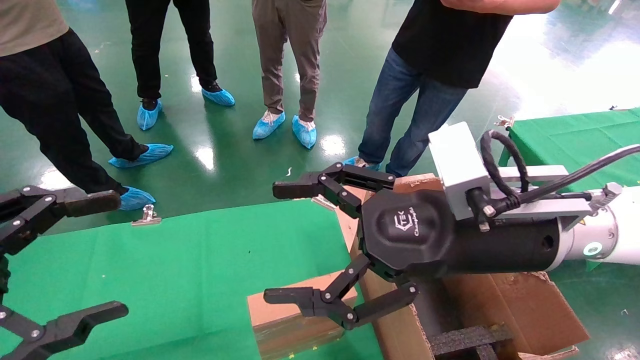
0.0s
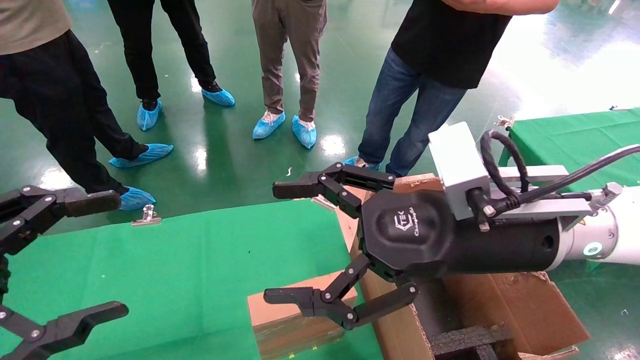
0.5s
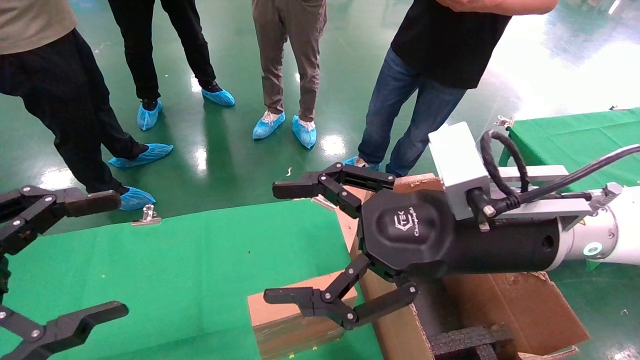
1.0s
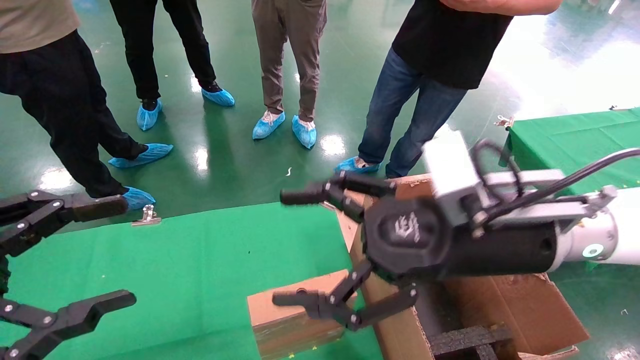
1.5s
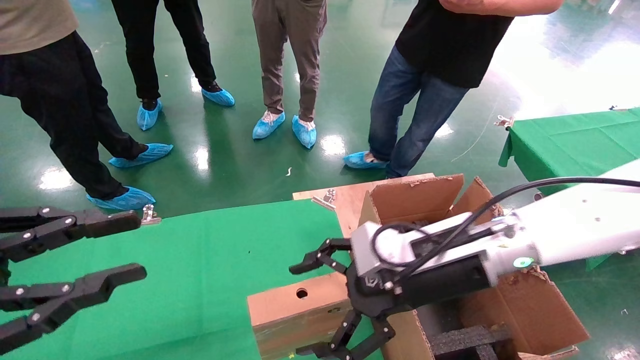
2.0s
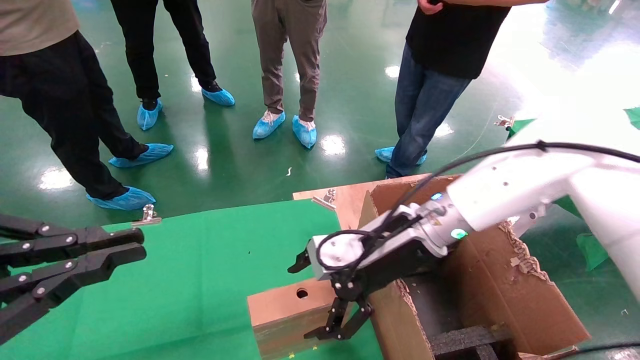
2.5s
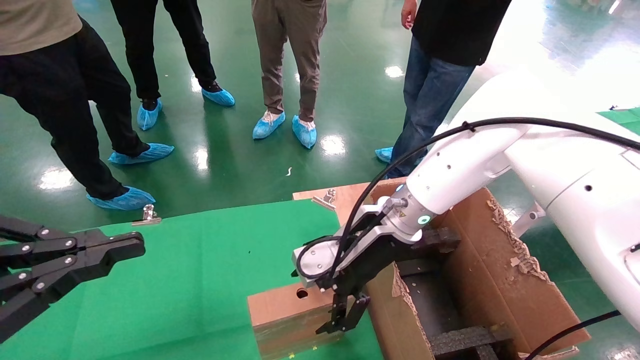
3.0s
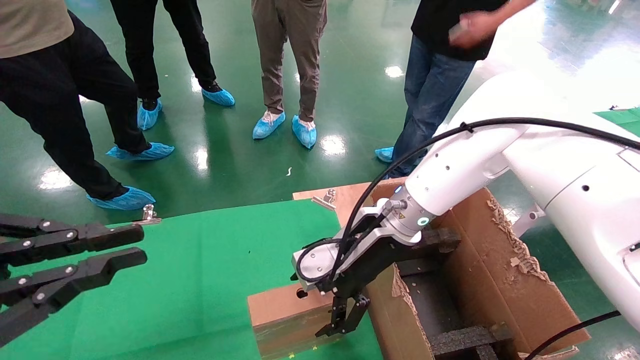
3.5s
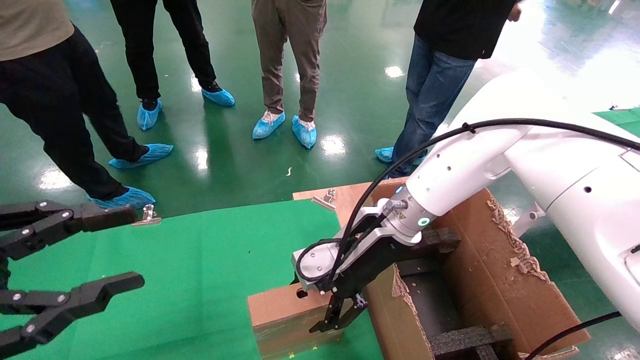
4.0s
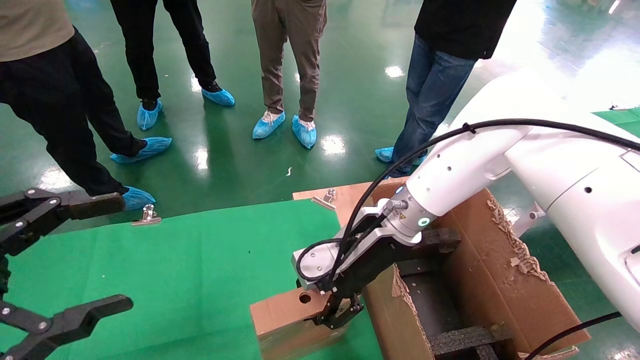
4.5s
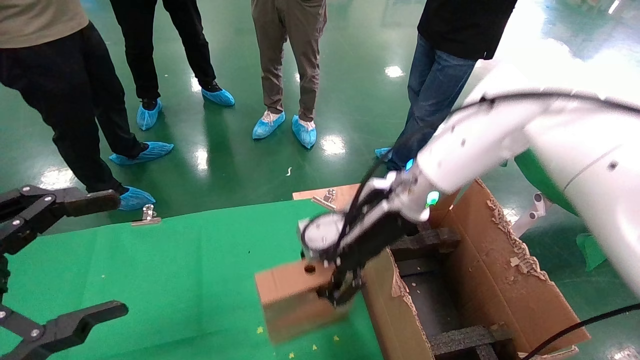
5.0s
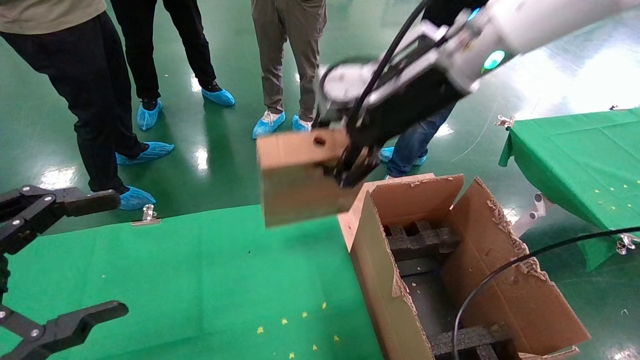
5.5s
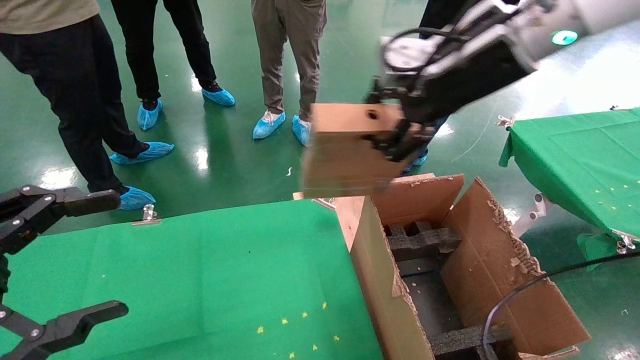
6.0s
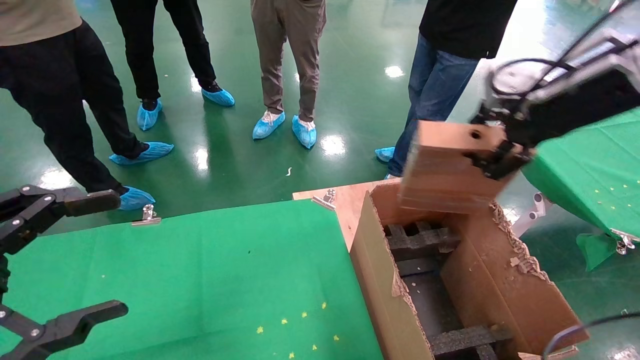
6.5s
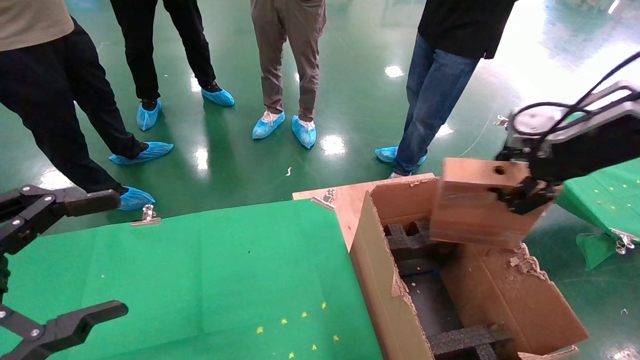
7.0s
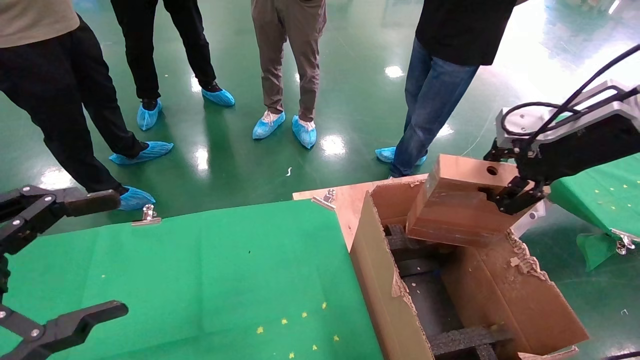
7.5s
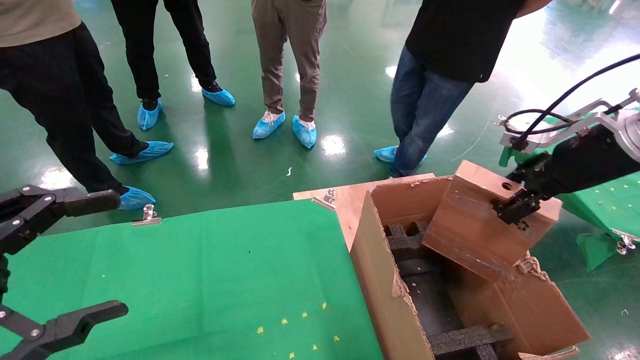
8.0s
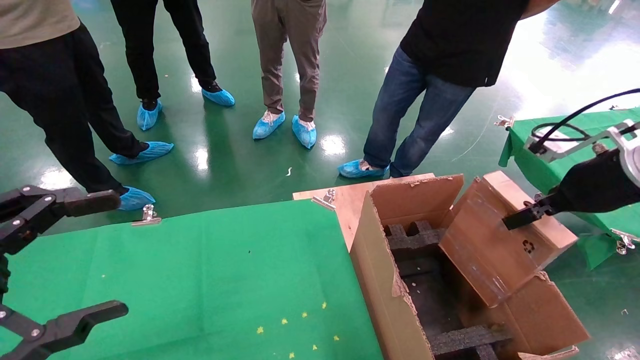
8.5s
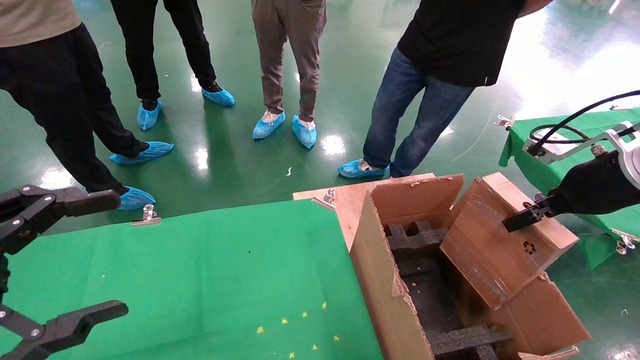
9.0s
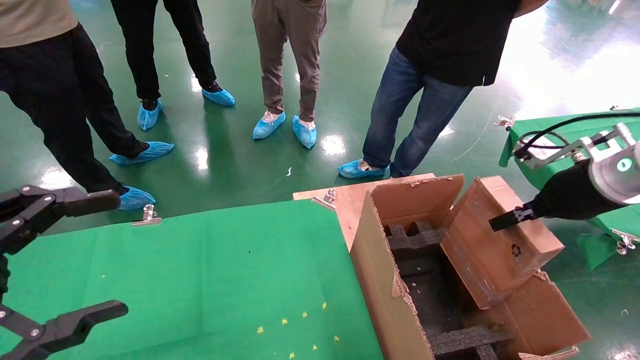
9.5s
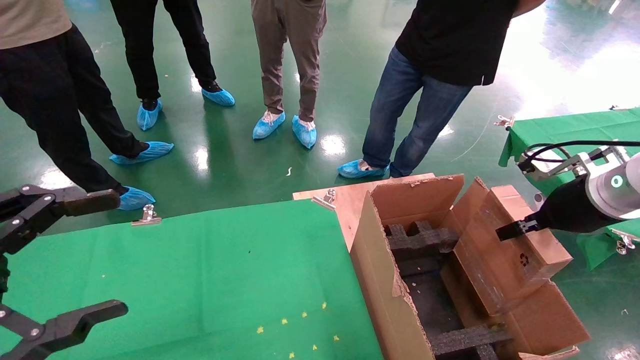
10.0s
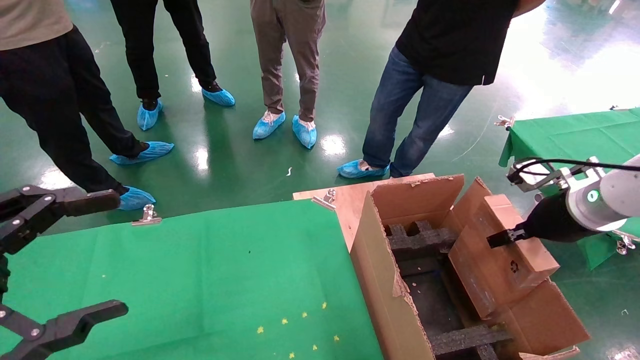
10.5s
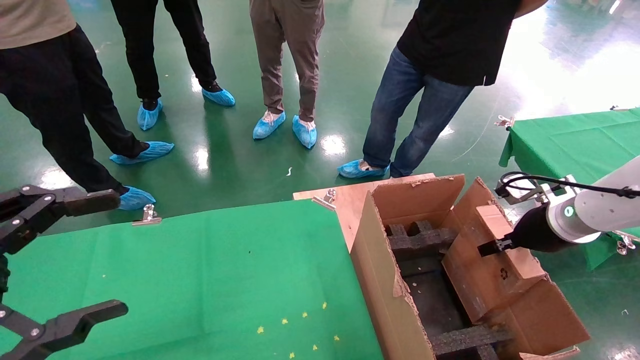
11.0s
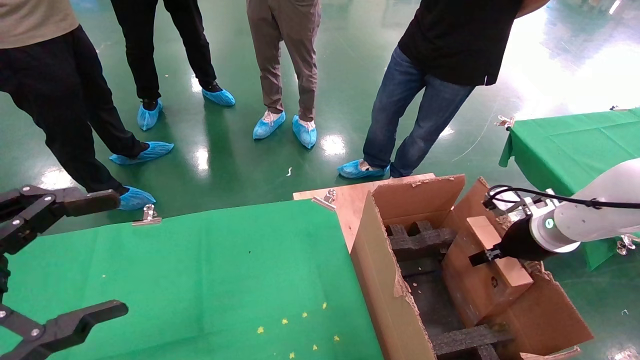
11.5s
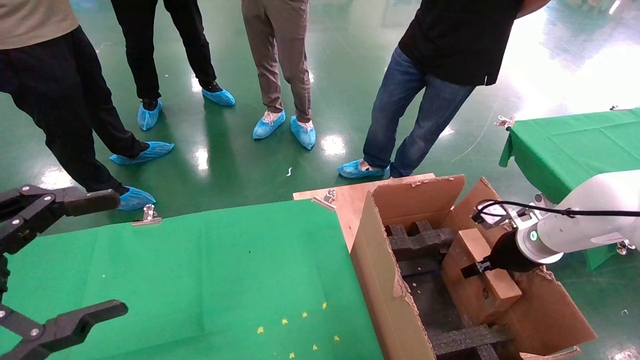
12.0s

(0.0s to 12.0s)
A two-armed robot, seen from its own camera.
Task of the whole recording: using a robotic arm to pick up a cardboard box and palace it the carton.
Step, 1.0s - 4.0s: Pick up the mouse and the power cord paper box.
0.0s - 2.0s: The left gripper closes up, while the right gripper goes some 10 cm downward and forward.
2.0s - 4.0s: The left gripper closes, then reopens, while the right gripper heads forward and to the left, covering about 10 cm.
4.0s - 6.0s: The left gripper opens up. The right gripper is displaced upward and to the right by roughly 25 cm, and closes up.
6.0s - 8.0s: The right gripper shifts about 20 cm to the right and downward.
8.0s - 10.0s: The right gripper shifts roughly 5 cm downward.
10.0s - 12.0s: The right gripper shifts about 15 cm downward and forward.

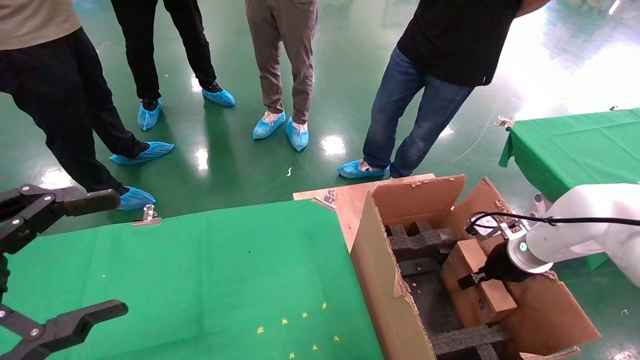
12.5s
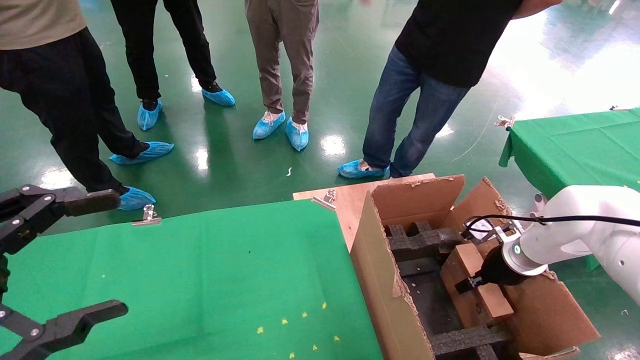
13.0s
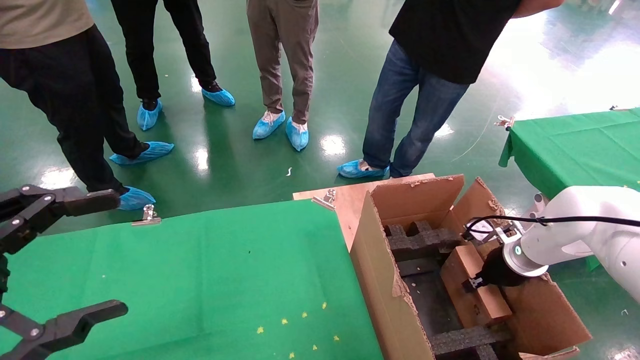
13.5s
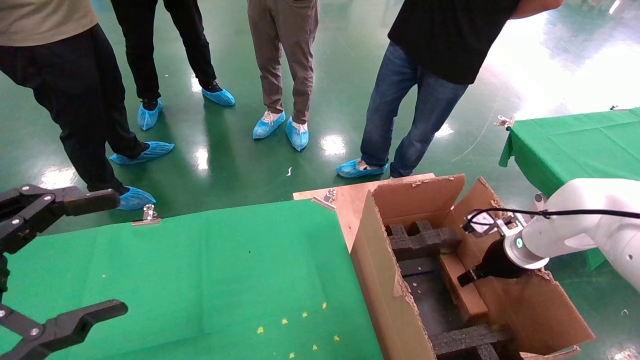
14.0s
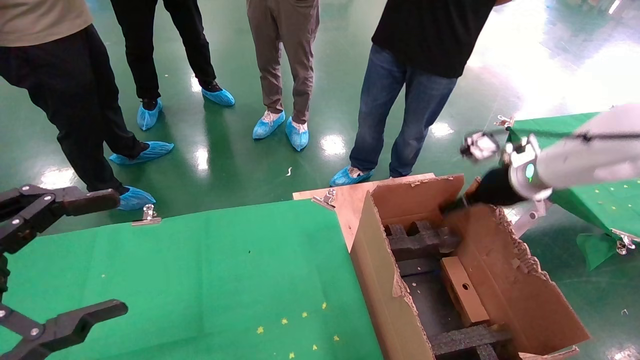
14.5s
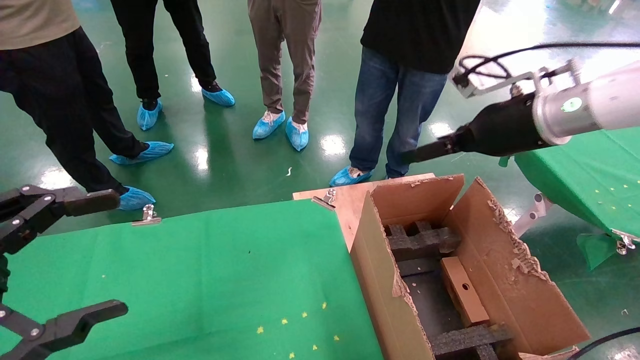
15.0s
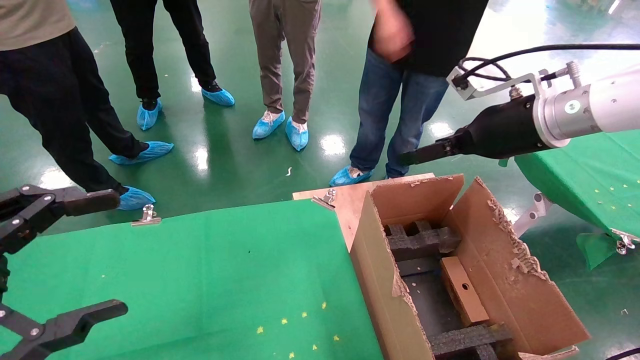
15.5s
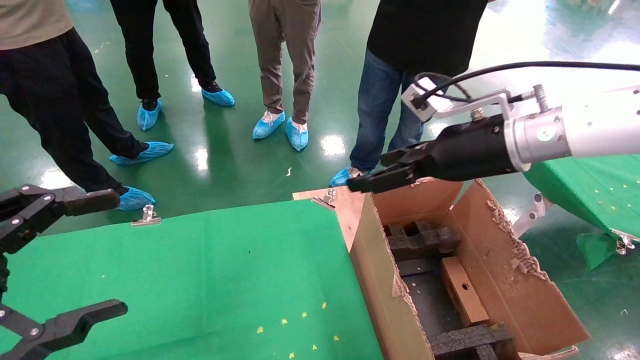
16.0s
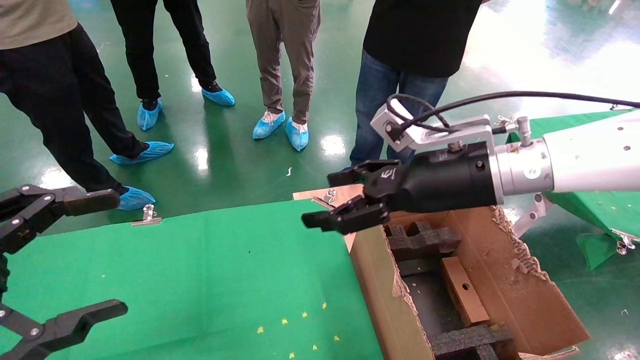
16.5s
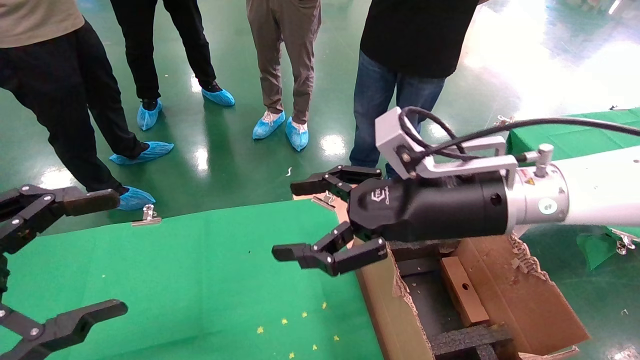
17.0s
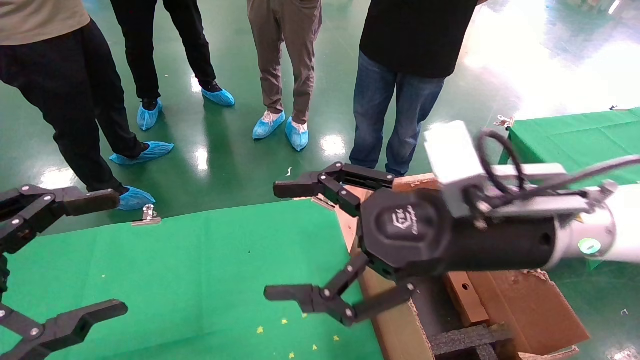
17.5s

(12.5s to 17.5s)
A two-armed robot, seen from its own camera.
Task of the whole recording: using a robotic arm to pick up a cardboard box and palace it the carton.
Step, 12.5s - 14.5s: Place the mouse and the power cord paper box into the container.
12.5s - 15.0s: The right gripper travels upward by about 25 cm, and opens its fingers.
15.0s - 17.5s: The right gripper shifts approximately 20 cm to the left, backward and downward.

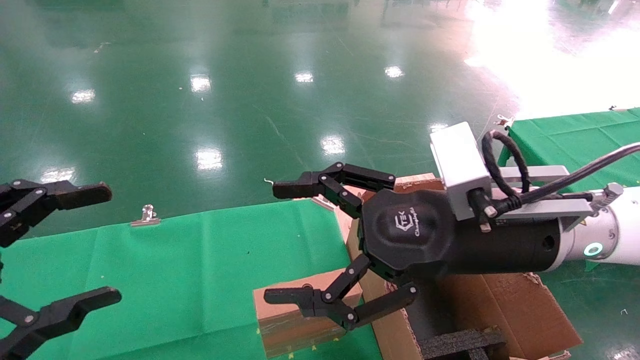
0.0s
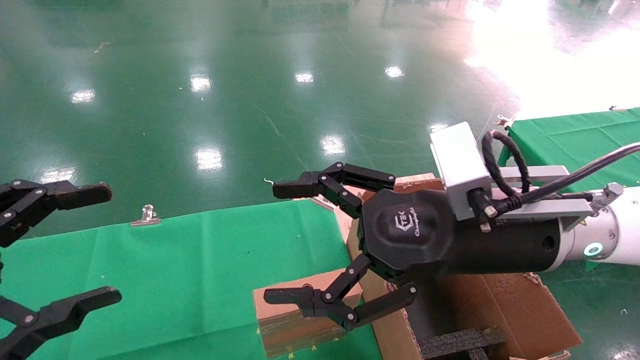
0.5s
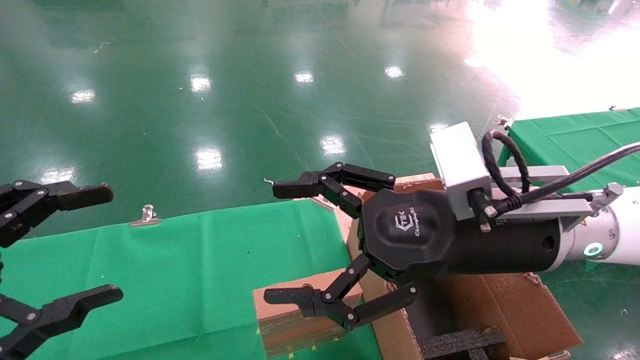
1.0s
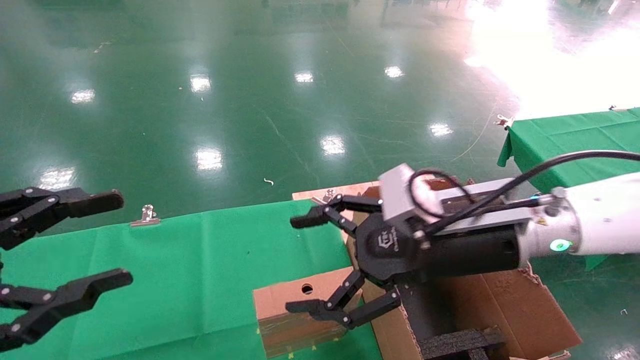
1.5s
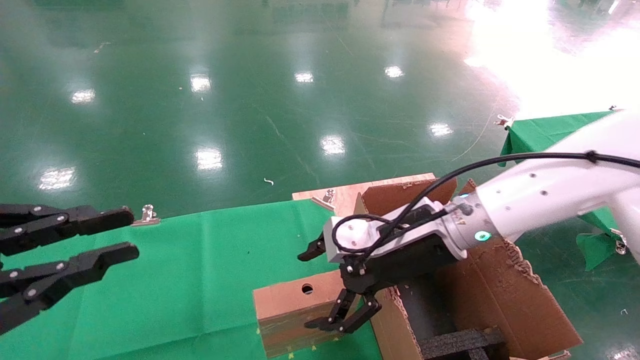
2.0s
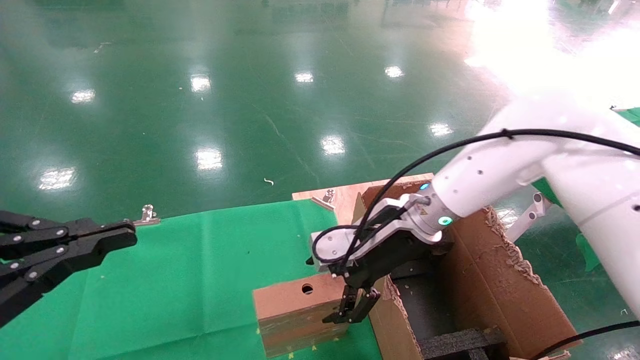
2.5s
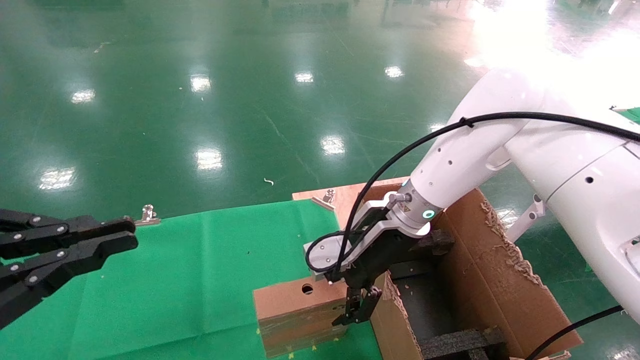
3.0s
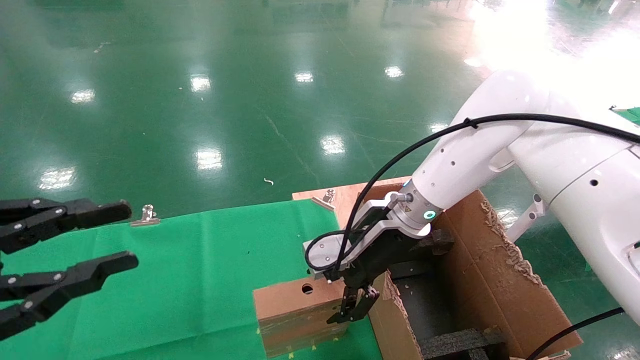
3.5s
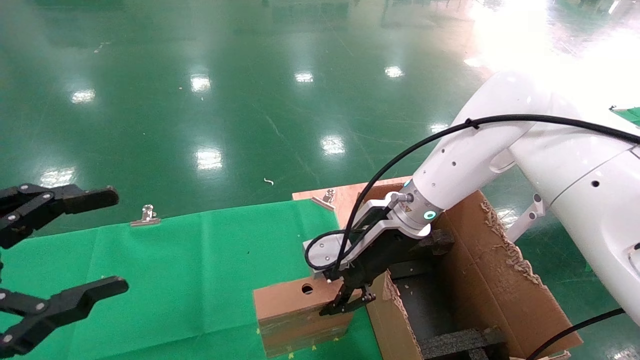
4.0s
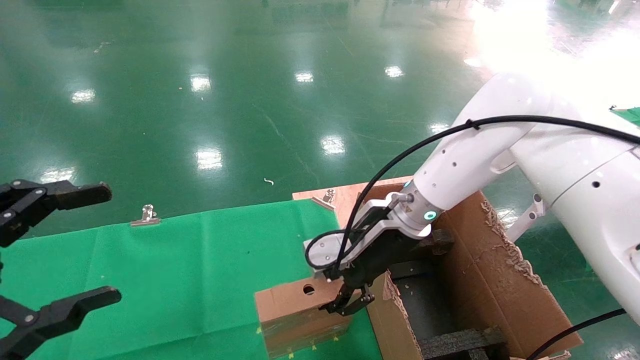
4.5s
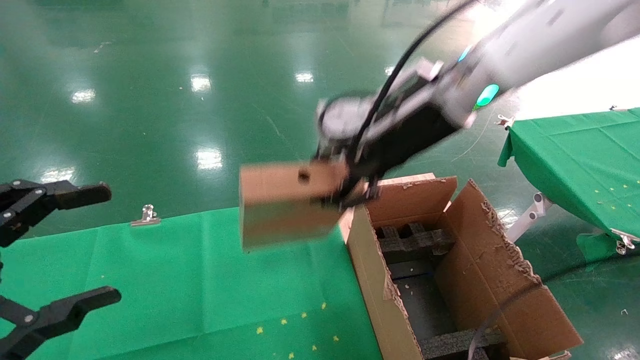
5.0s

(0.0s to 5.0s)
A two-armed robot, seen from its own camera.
Task of the whole recording: using a robotic arm to pick up a cardboard box and palace it the carton.
Step, 1.5s - 4.0s: Pick up the mouse and the power cord paper box.
0.0s - 2.5s: The right gripper travels forward and downward by about 15 cm, while the left gripper closes its fingers.
2.5s - 5.0s: The left gripper opens up. The right gripper is displaced upward by roughly 15 cm, and closes up.
